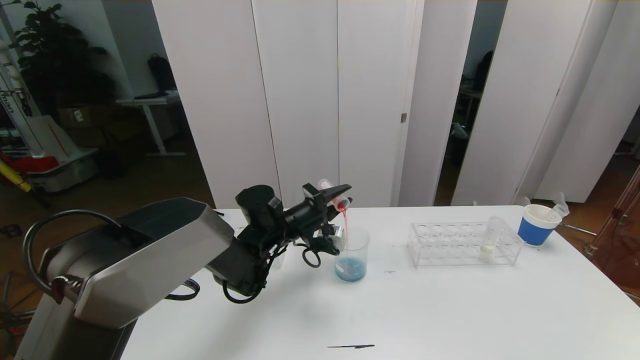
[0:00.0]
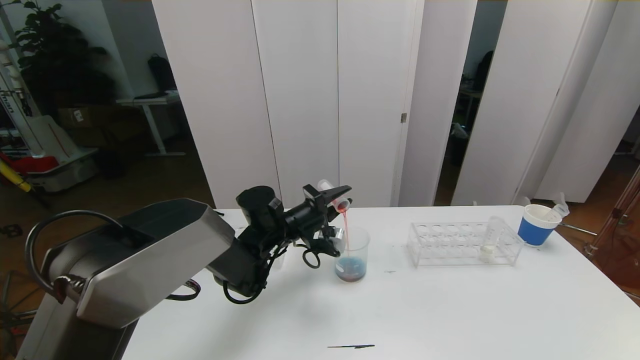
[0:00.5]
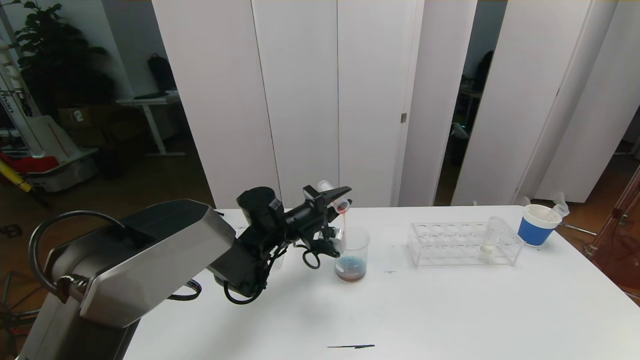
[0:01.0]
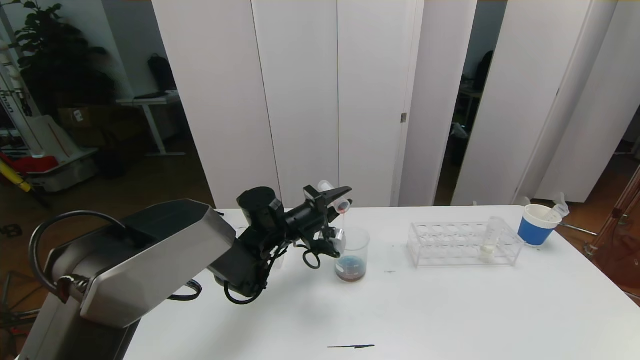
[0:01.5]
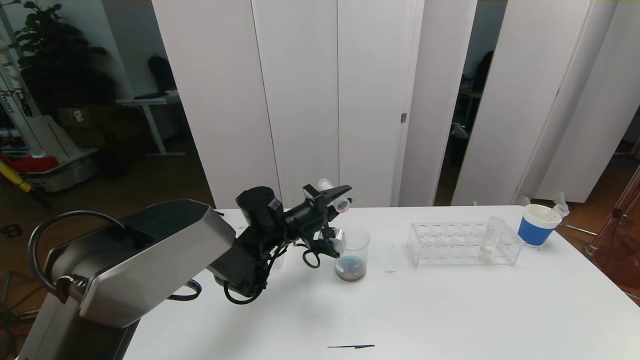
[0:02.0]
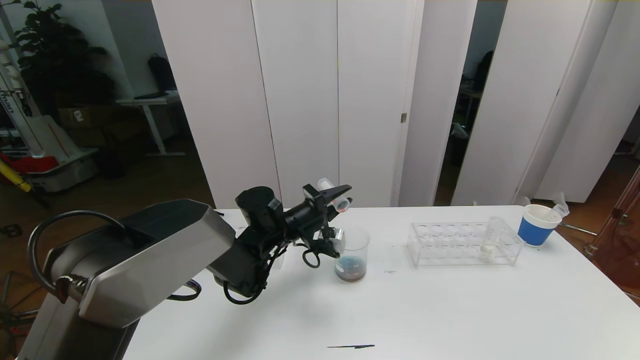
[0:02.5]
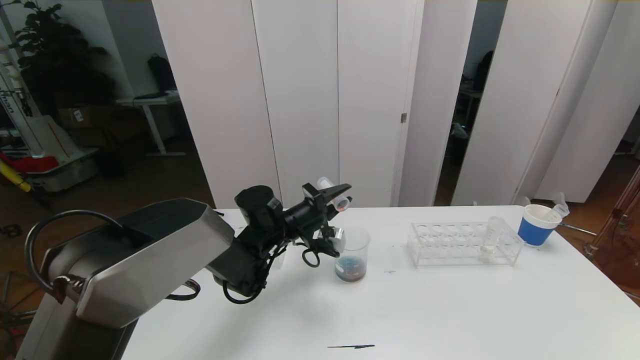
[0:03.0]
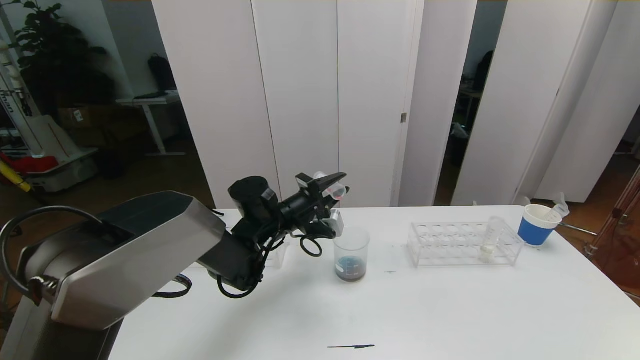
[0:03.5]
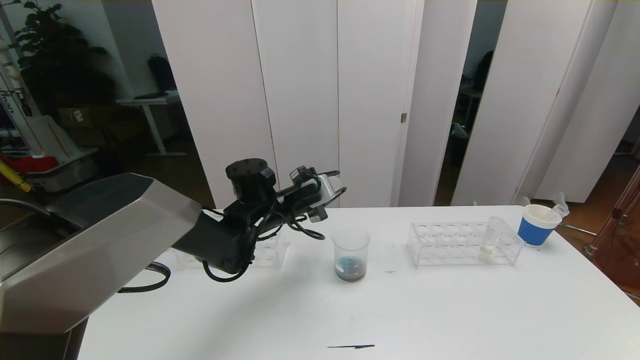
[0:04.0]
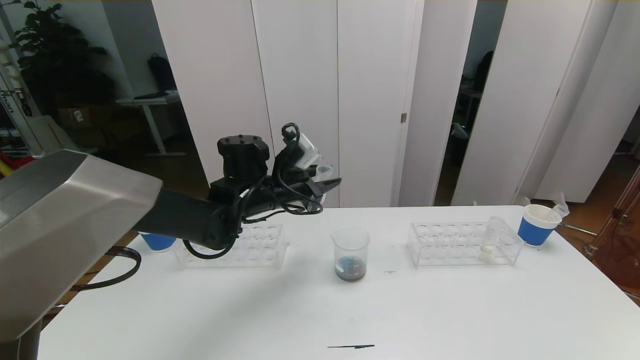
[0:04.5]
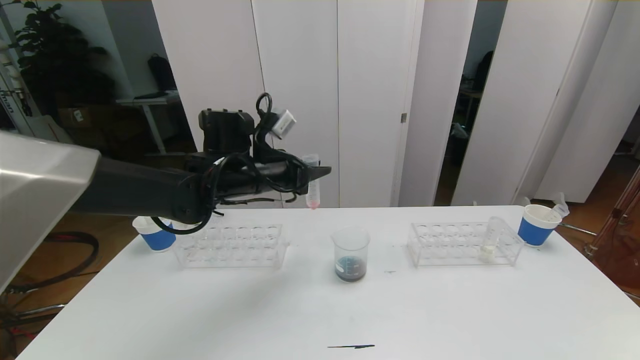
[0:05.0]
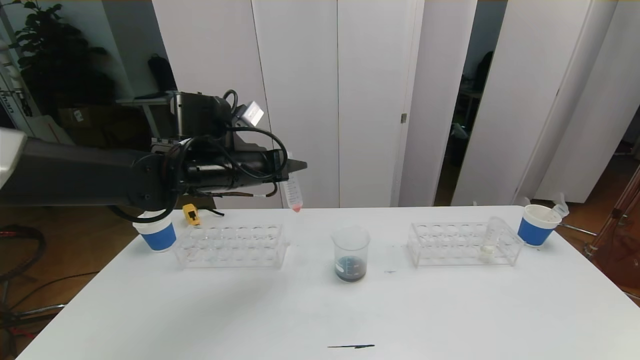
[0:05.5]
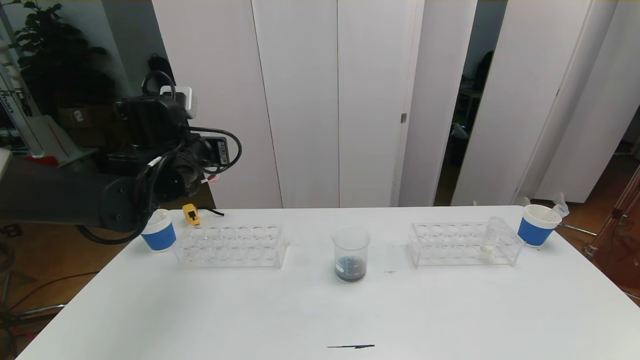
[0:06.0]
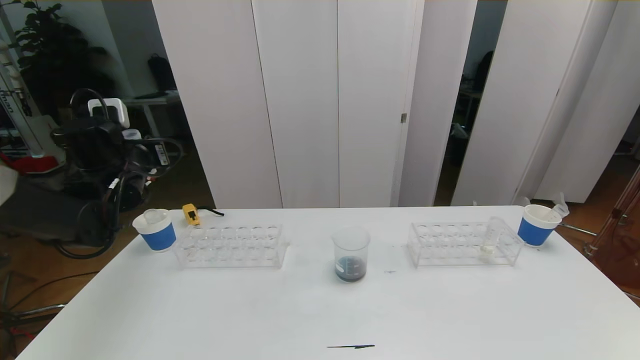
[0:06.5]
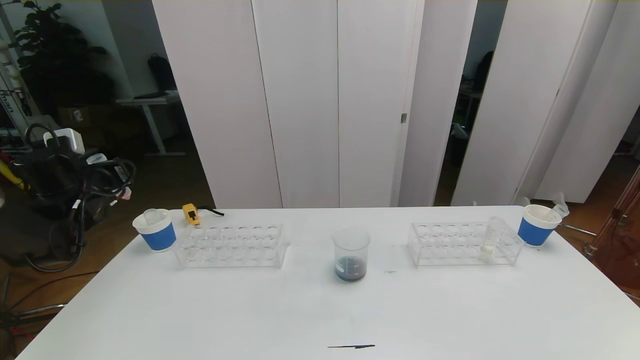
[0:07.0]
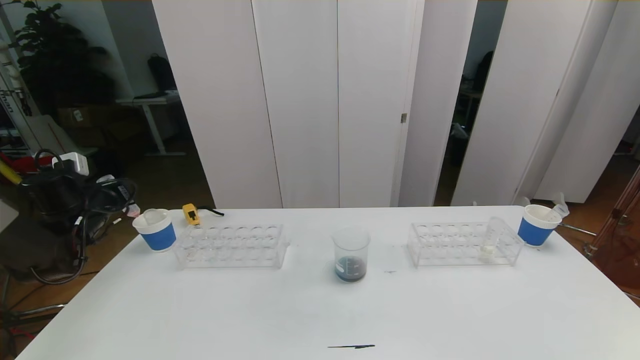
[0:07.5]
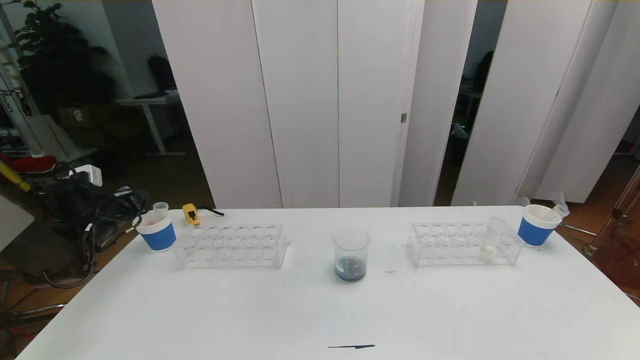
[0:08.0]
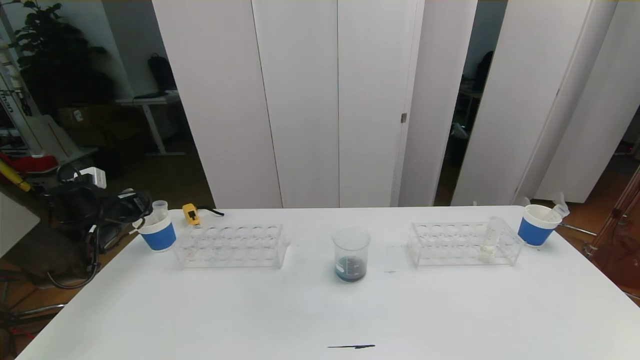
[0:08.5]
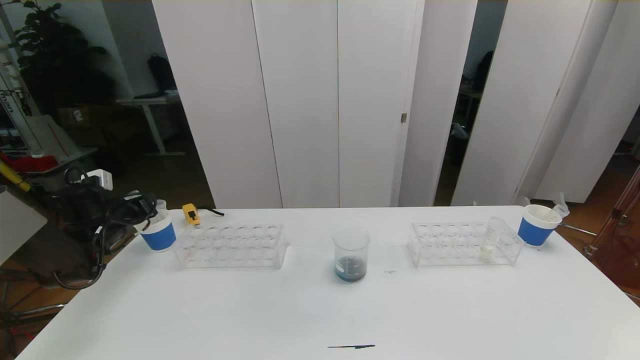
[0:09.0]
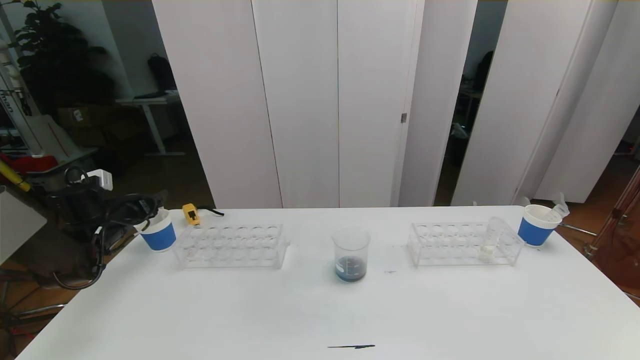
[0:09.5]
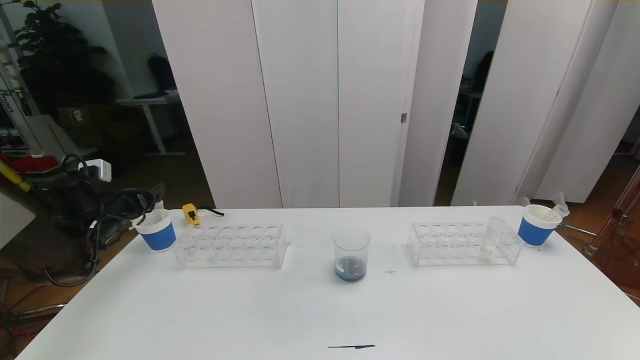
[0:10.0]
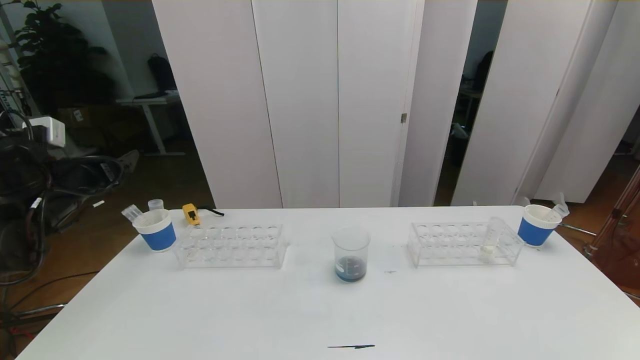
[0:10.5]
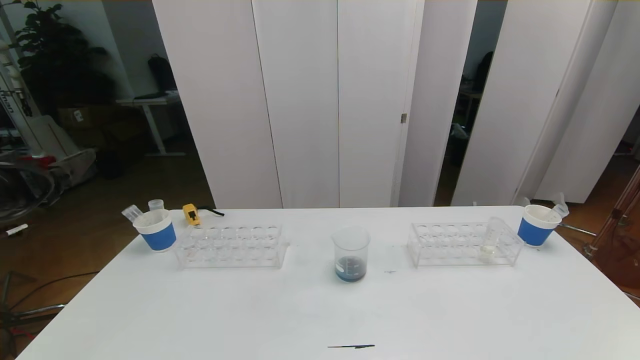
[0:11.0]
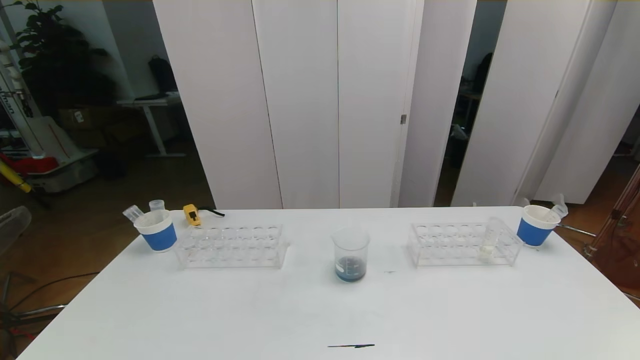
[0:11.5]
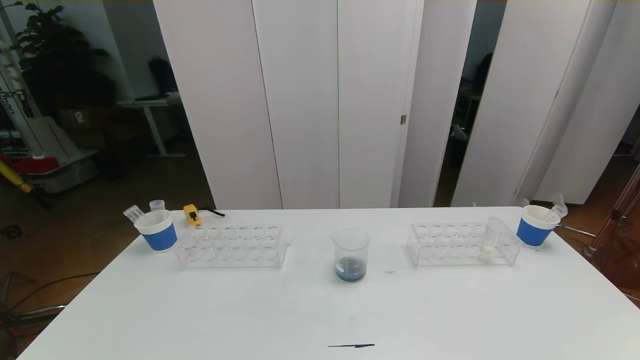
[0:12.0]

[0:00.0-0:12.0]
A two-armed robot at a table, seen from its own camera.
Task of the whole recording: pick up the test tube with red pigment the test tube with blue pigment and the test tube with white pigment by grippers and pour them into the beaker.
Step, 0:00.0 to 0:11.5: Pour the orange reagent into the graduated cylinder and place the test tube into the paper cup.
0:00.0 to 0:02.0: Neither gripper changes place.
0:04.0 to 0:06.0: The left gripper goes some 15 cm to the left and upward.
0:06.0 to 0:08.0: The left gripper is displaced to the left and downward by some 25 cm.
0:08.0 to 0:10.0: The left gripper opens.
0:10.0 to 0:12.0: The left gripper goes roughly 40 cm backward.

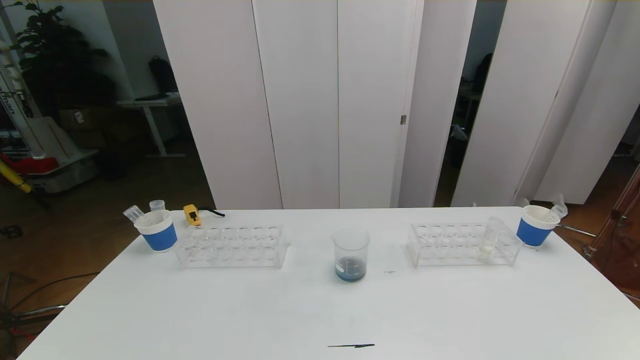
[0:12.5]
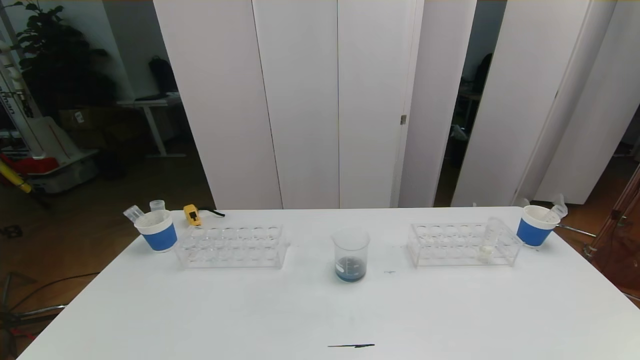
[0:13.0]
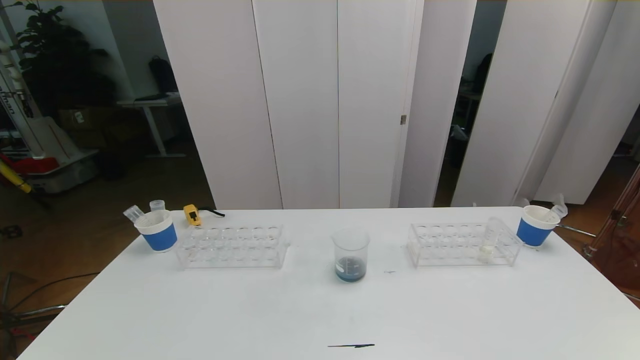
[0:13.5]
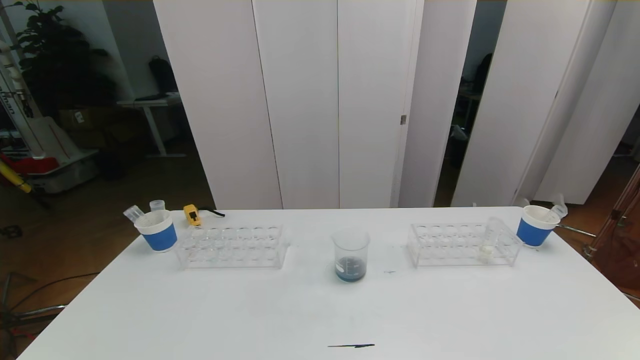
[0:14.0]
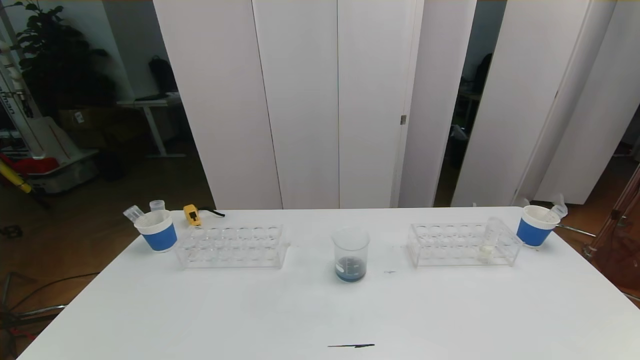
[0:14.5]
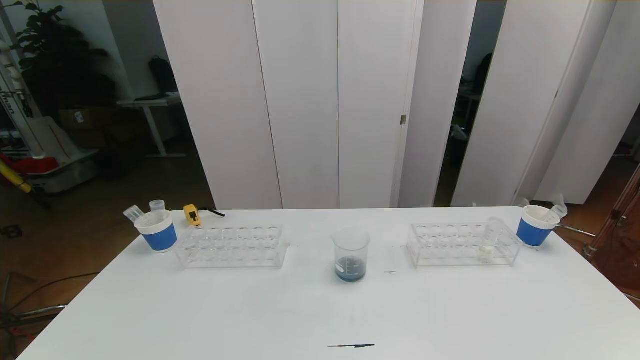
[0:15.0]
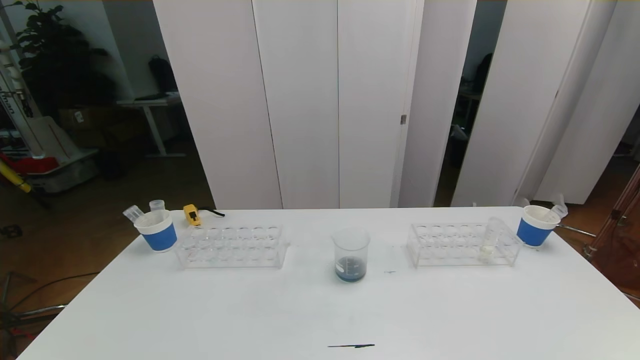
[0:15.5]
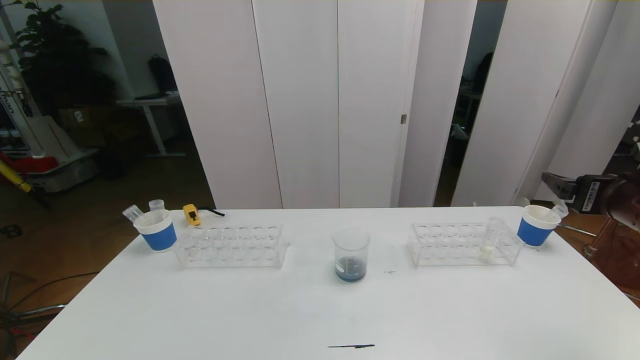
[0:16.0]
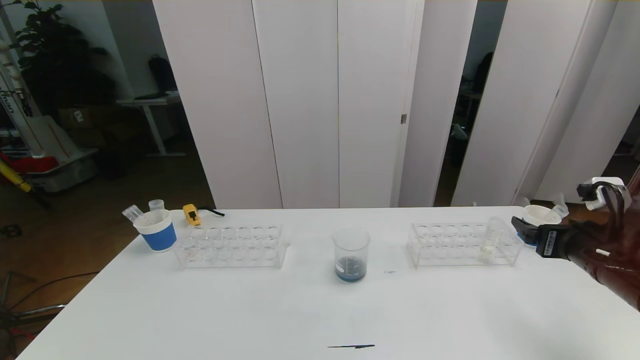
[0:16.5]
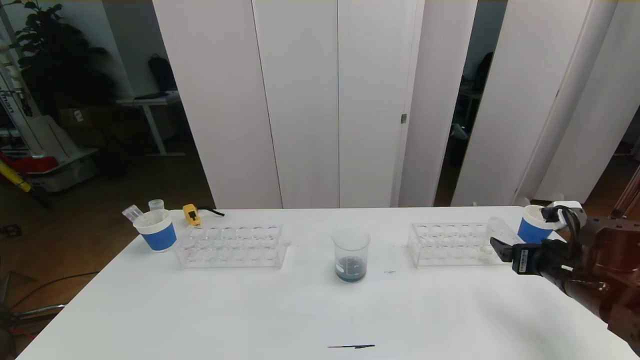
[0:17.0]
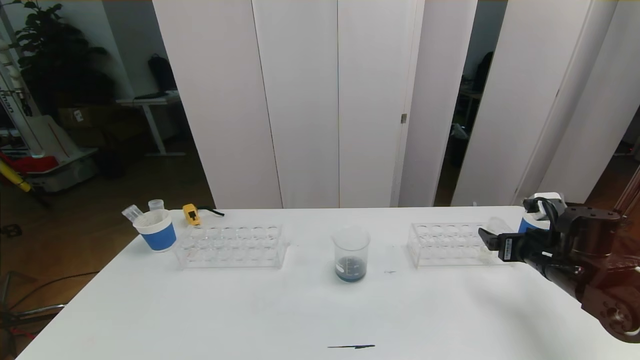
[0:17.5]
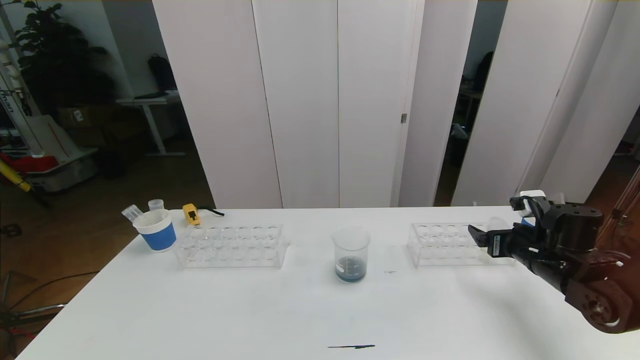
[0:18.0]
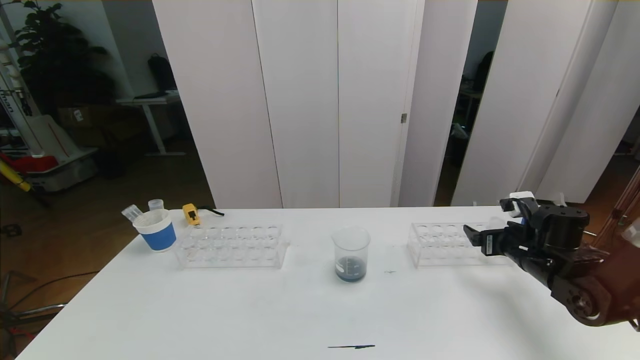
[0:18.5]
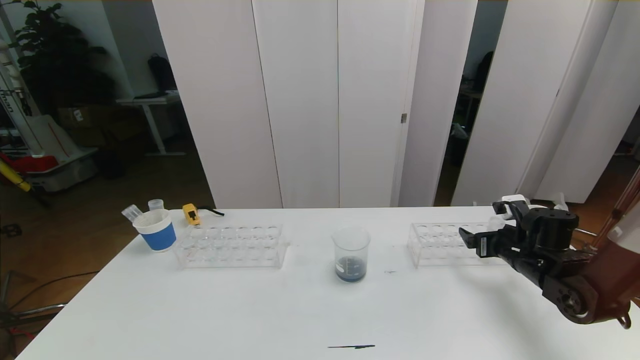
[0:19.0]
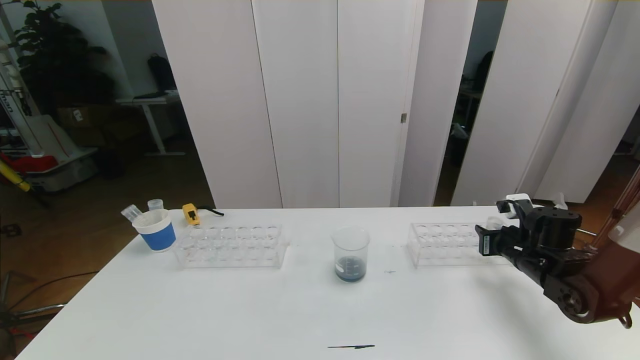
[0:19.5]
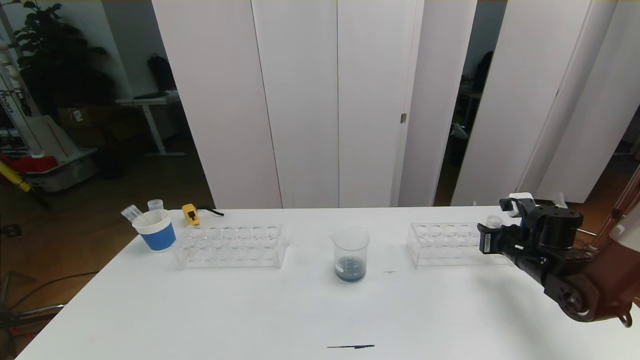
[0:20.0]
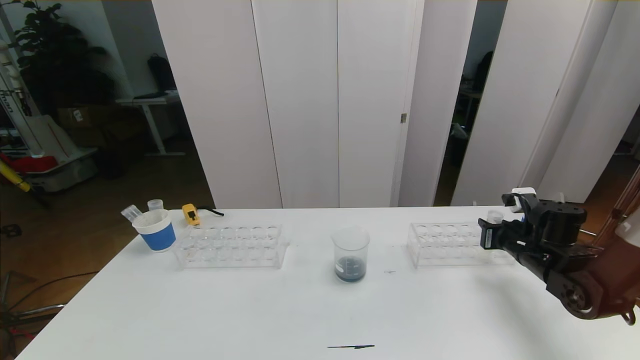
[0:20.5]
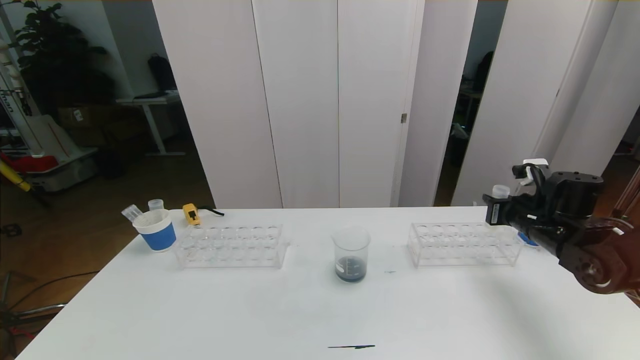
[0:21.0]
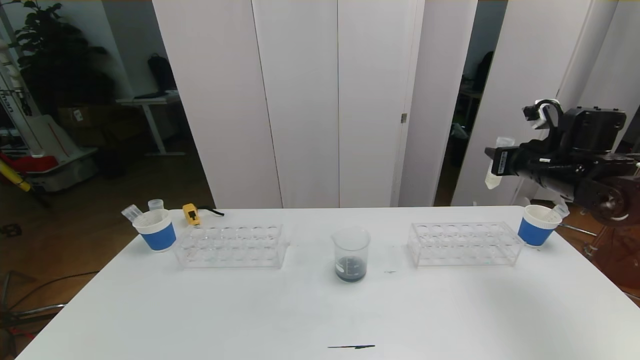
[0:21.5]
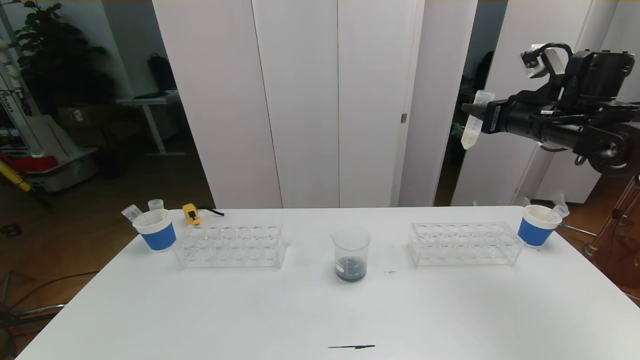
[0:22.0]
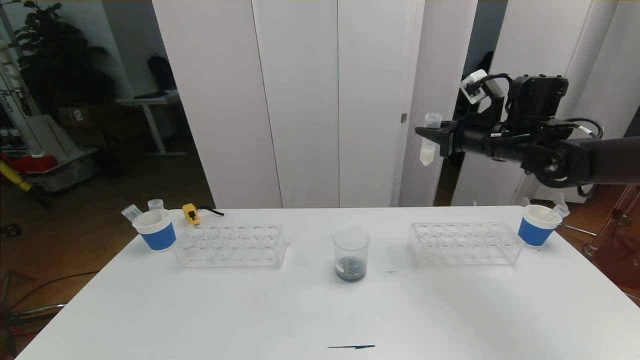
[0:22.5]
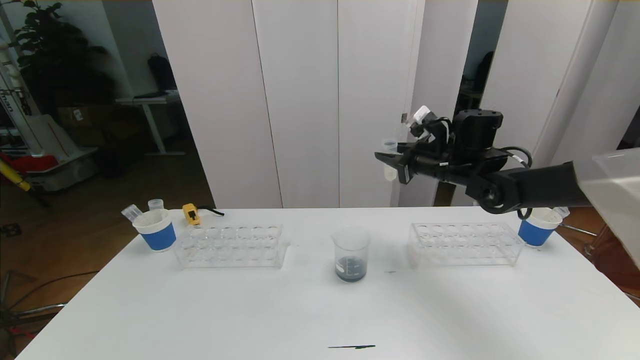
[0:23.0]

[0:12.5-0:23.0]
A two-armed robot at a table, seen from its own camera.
Task of the whole recording: pick up the test tube with red pigment the test tube with blue pigment and the test tube with white pigment by grippers and pour them into the beaker.
0:14.5 to 0:16.5: The right gripper goes roughly 30 cm forward.
0:16.5 to 0:19.0: The right gripper is displaced forward and downward by roughly 15 cm.
0:19.0 to 0:21.0: The right gripper travels upward by some 5 cm, and closes.
0:21.0 to 0:23.0: The right gripper shifts approximately 20 cm to the left, forward and upward.
